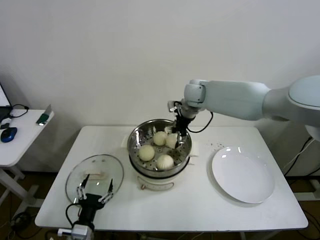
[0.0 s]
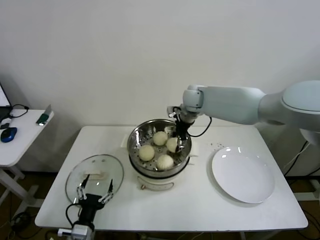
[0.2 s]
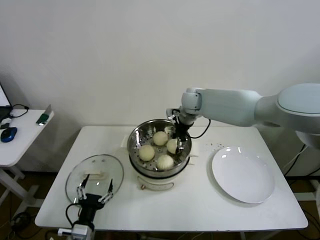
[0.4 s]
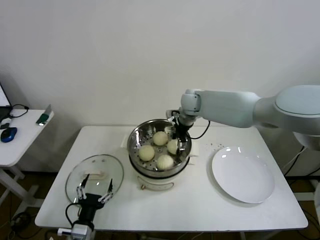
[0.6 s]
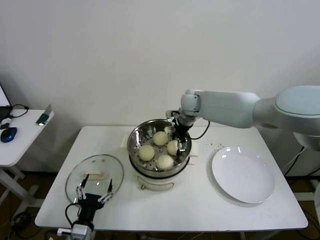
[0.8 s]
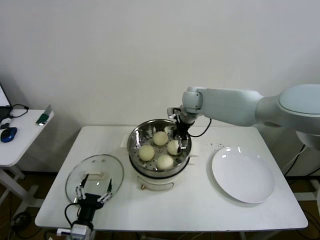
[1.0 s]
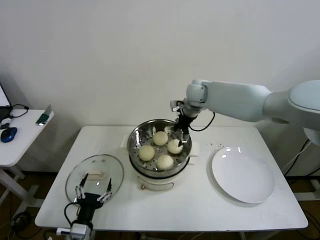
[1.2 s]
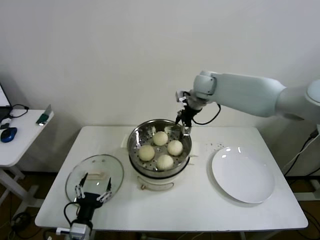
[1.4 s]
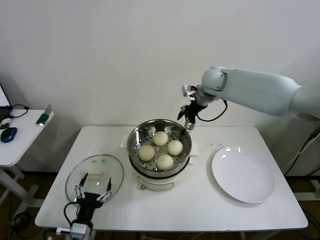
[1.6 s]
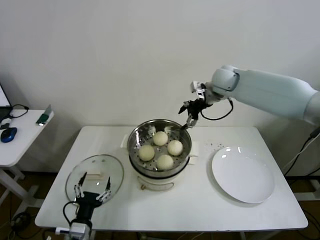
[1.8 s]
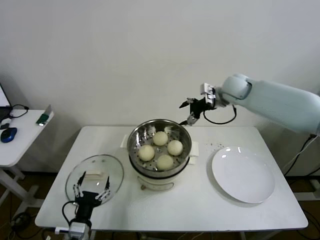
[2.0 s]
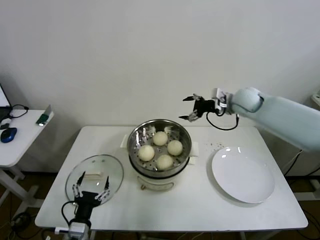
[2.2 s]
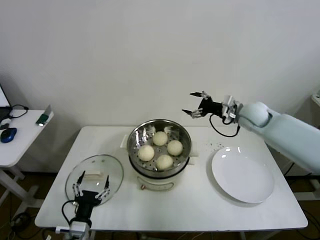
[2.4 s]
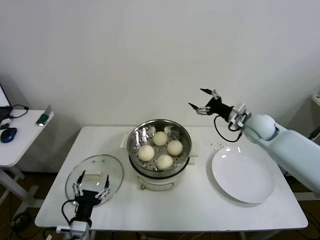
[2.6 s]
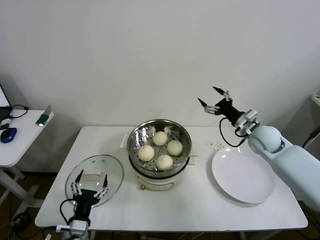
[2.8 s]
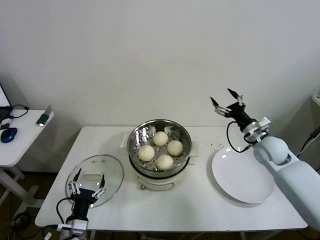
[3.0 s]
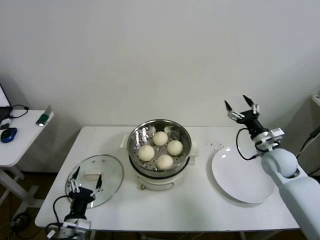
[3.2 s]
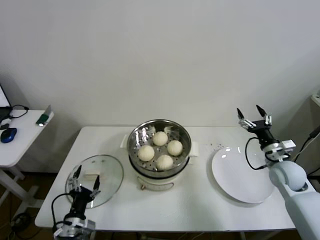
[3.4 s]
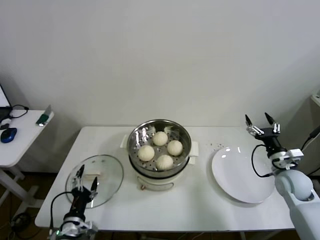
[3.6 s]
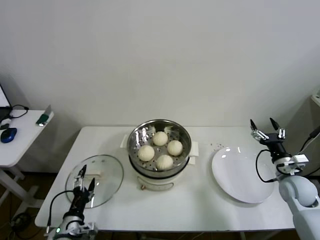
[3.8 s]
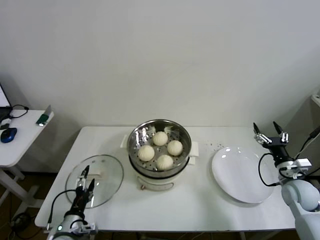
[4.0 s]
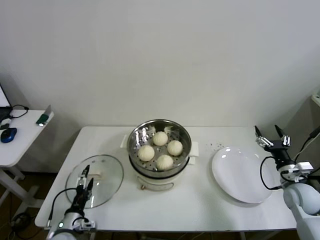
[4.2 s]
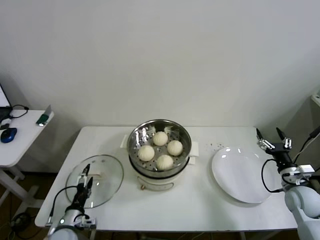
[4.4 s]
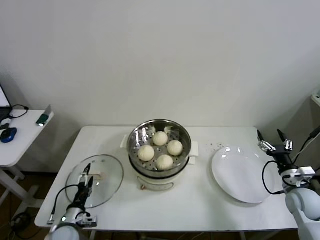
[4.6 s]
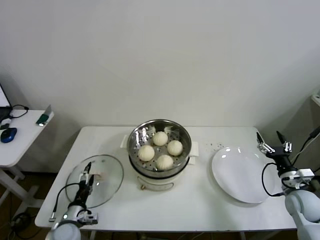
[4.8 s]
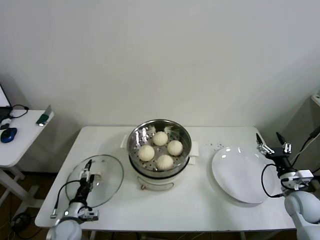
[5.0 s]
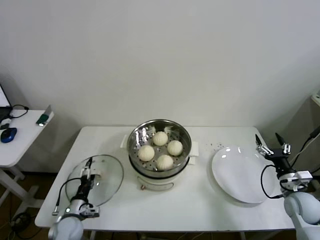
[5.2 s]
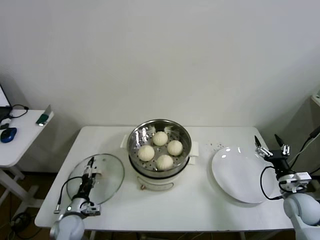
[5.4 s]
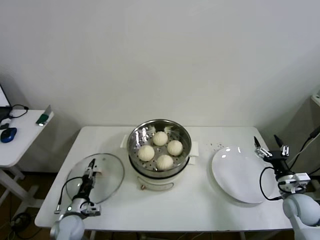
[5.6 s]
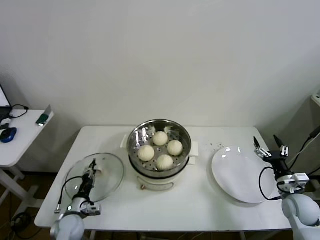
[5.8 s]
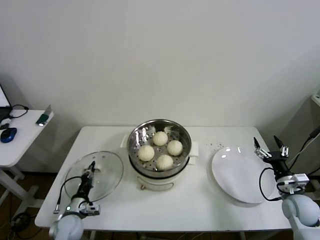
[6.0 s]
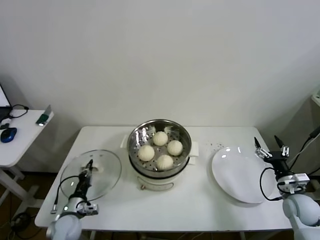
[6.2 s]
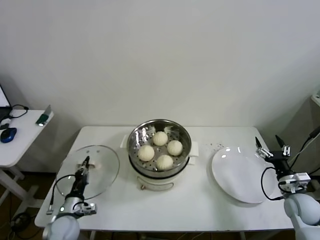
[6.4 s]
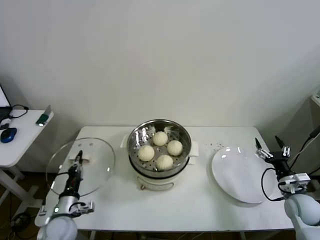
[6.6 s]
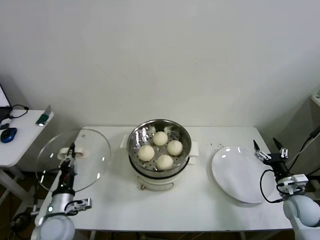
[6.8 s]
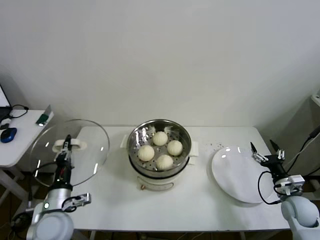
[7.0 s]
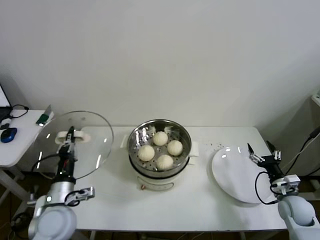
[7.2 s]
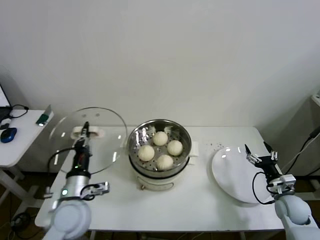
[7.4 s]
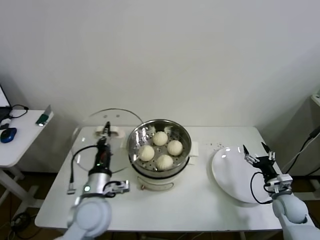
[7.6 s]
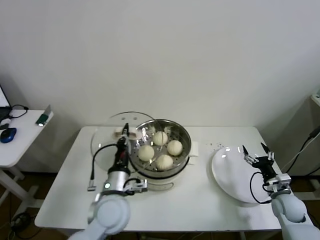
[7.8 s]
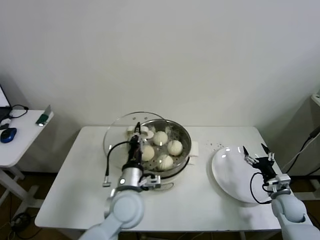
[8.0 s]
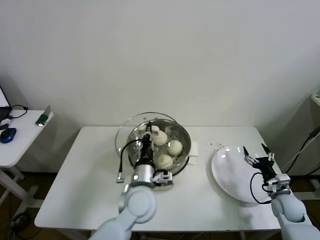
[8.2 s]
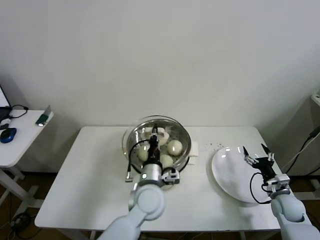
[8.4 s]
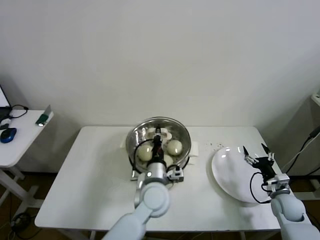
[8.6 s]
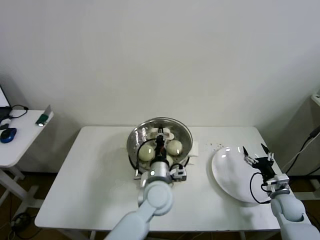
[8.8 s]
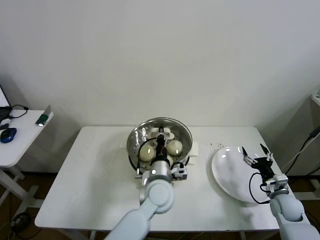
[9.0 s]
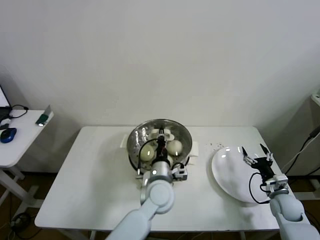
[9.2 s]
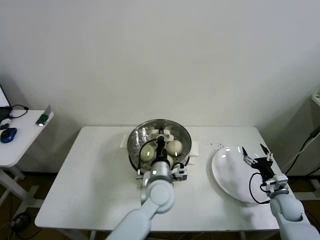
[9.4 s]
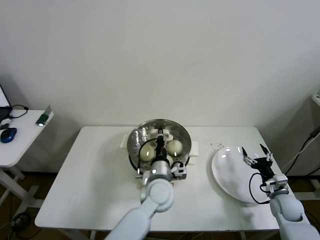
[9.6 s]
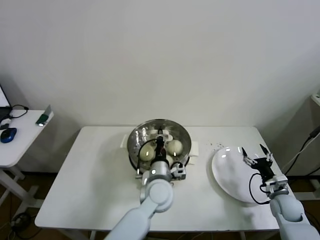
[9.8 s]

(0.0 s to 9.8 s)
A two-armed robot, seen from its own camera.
Step, 0.8 s - 6.0 s: Grasp the pot lid with left gripper.
0.0 s - 1.4 s: The right gripper opens its fingers.
1.4 s - 2.8 s: The right gripper shifts some 25 cm to the right, backward and downward.
2.8 s - 4.2 s: The left gripper travels to the left by some 5 cm; the right gripper shifts roughly 20 cm backward, downward and to the right.
4.2 s - 5.6 s: The left gripper travels forward by about 5 cm.
5.6 s - 7.0 s: The left gripper moves upward, approximately 15 cm, and closes up.
7.0 s - 8.4 s: The left gripper heads to the right, covering approximately 25 cm.
8.4 s - 9.8 s: The left gripper changes place by about 5 cm.

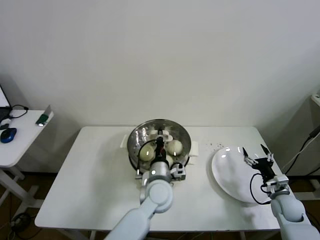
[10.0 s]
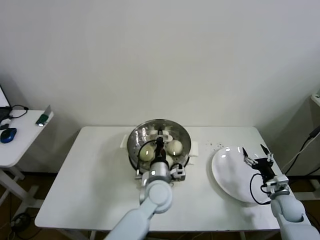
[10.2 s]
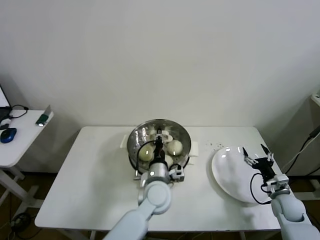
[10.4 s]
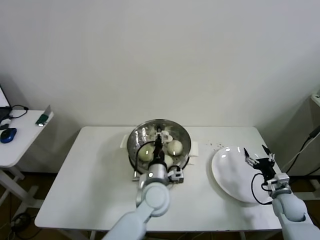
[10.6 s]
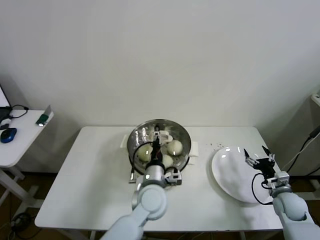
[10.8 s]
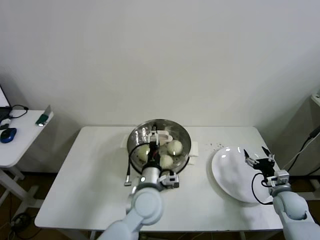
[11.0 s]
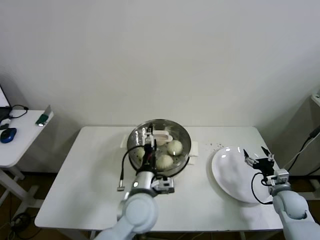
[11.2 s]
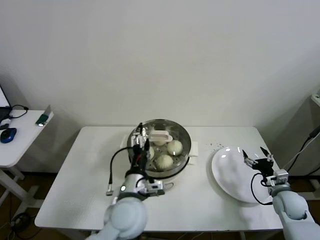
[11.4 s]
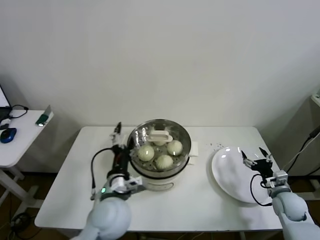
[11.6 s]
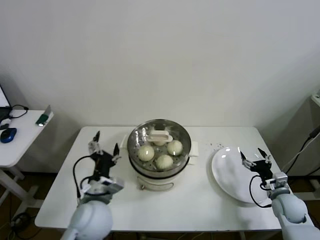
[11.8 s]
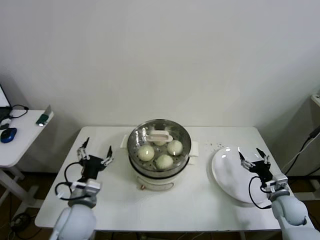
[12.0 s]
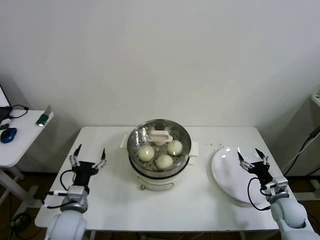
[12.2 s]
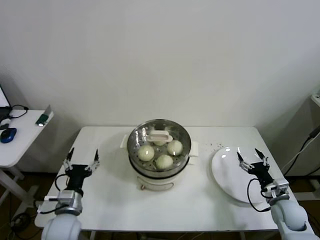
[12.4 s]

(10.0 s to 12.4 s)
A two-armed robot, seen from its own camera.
10.0 s - 11.2 s: The left gripper is displaced backward by some 5 cm, and opens.
11.2 s - 12.4 s: The left gripper moves to the left, about 25 cm.

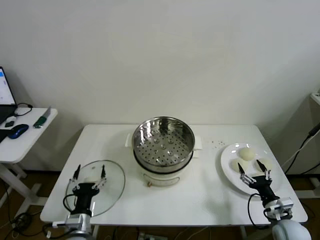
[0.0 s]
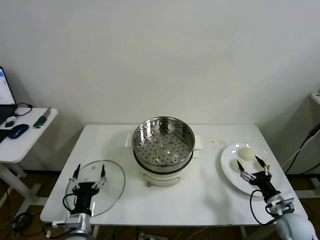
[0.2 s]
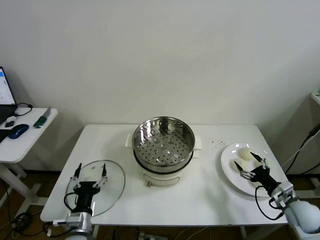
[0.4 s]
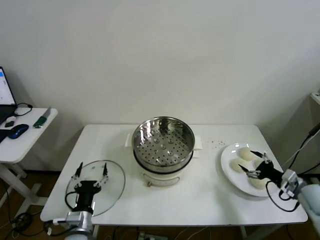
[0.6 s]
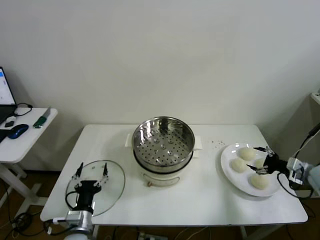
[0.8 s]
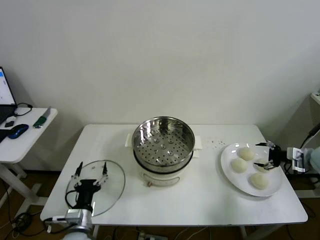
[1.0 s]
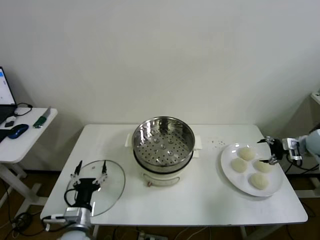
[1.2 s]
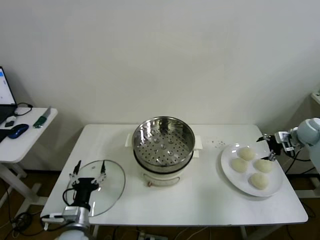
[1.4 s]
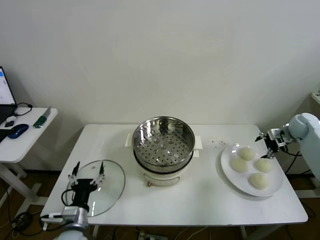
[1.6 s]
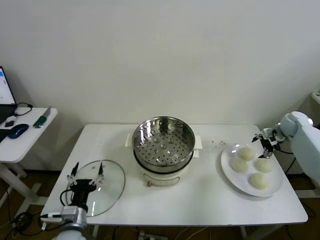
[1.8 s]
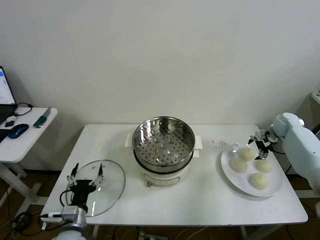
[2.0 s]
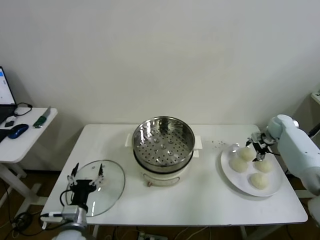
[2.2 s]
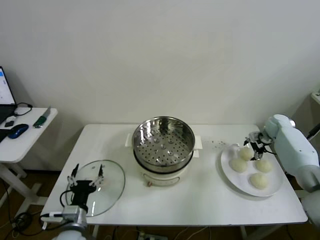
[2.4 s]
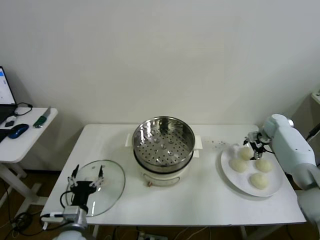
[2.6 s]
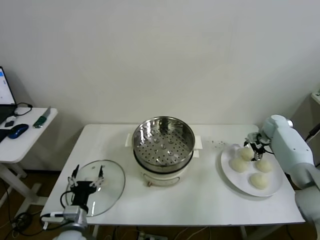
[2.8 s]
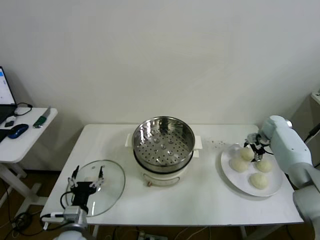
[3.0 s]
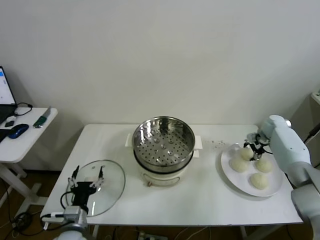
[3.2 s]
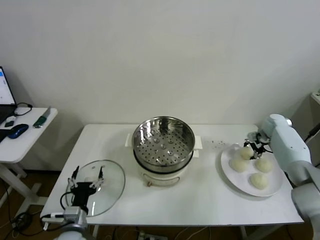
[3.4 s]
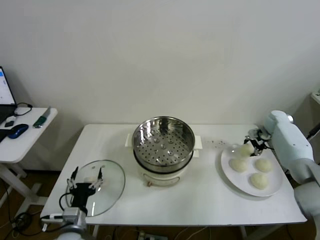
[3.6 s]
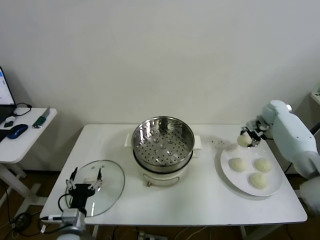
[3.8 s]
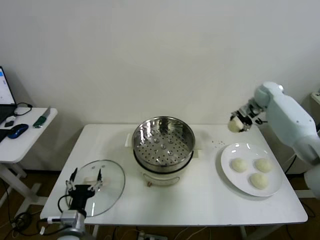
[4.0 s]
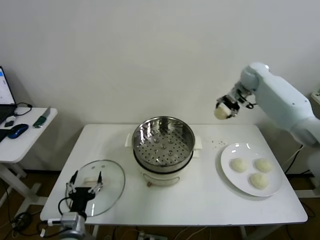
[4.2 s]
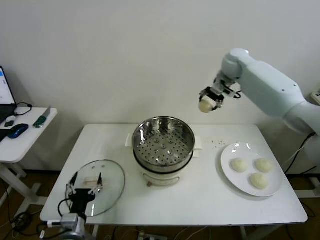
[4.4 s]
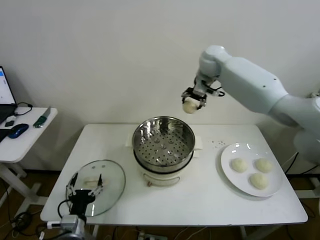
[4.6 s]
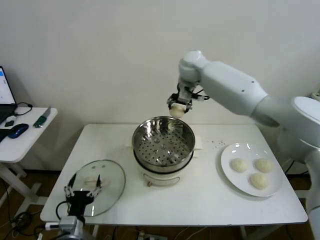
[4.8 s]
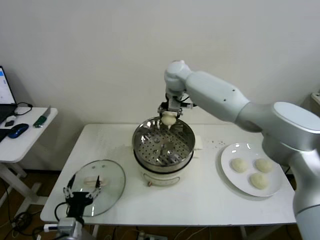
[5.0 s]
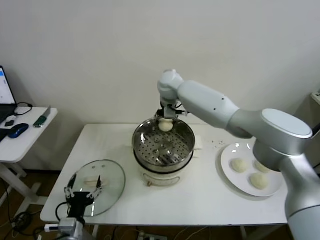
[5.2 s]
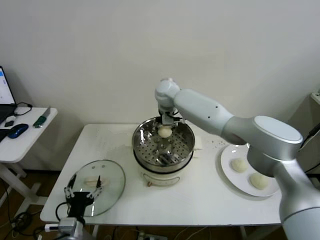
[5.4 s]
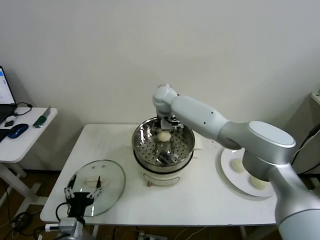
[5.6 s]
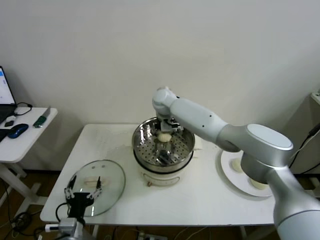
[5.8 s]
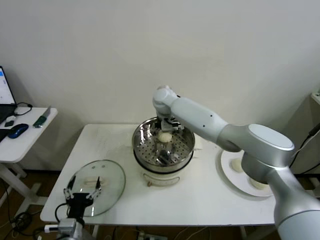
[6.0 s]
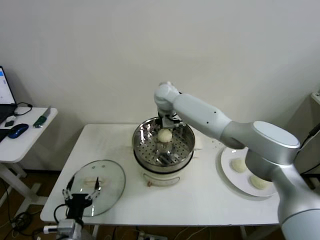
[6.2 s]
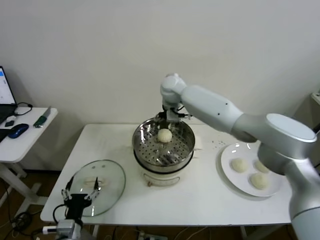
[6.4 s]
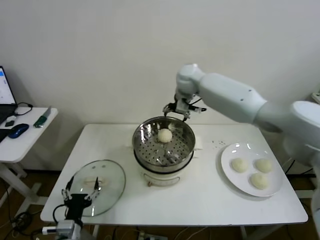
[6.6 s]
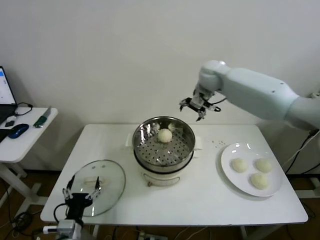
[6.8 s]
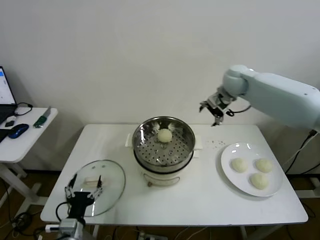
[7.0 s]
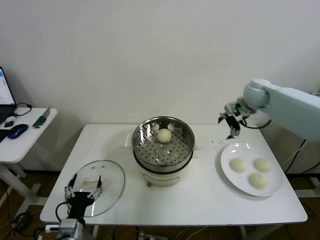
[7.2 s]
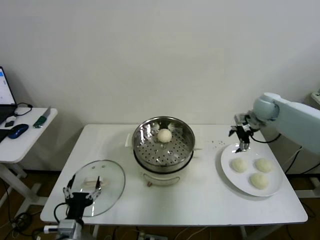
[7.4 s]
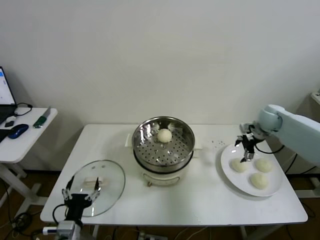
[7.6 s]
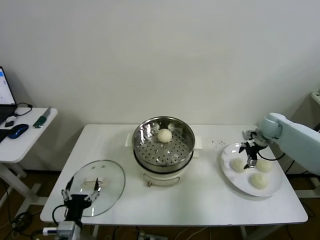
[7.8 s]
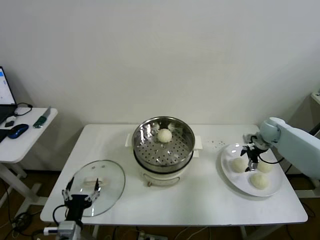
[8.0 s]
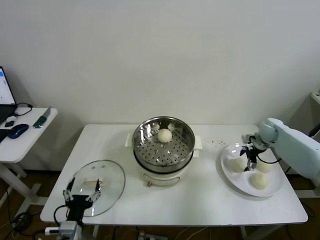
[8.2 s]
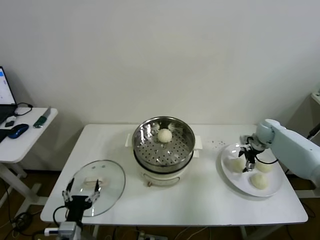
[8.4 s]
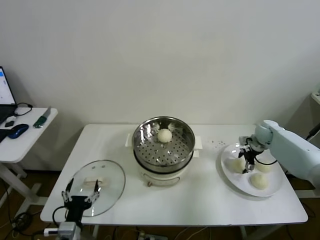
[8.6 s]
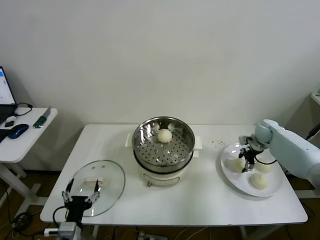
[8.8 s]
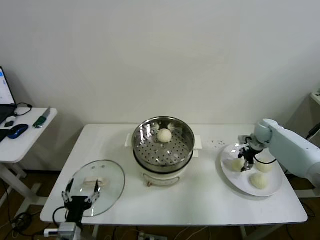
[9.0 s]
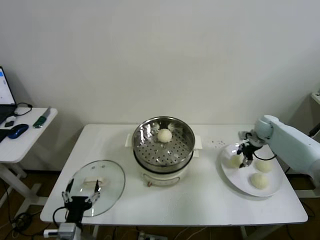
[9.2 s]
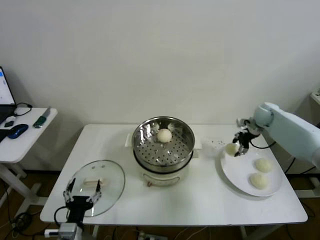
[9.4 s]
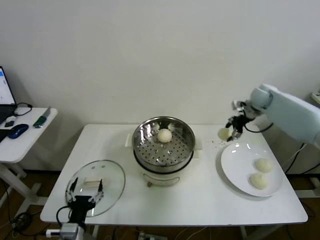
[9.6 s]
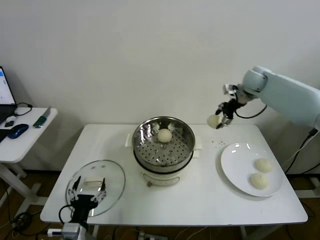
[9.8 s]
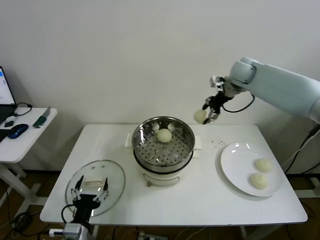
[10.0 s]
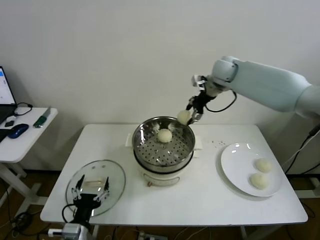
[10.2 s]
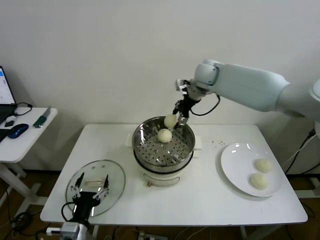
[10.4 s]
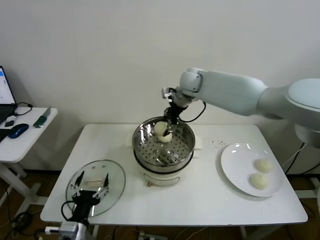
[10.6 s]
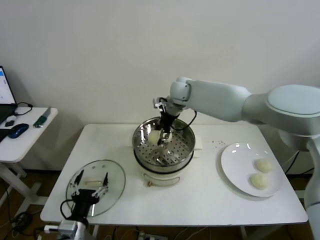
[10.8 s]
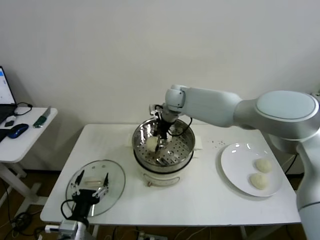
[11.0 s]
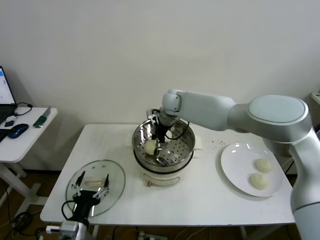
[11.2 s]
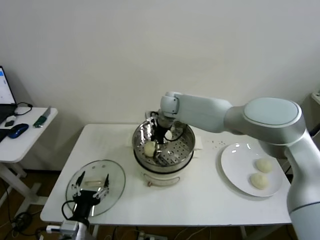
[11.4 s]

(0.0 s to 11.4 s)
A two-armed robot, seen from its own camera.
Step, 0.0 s - 3.0 s: Grasp the baozi in the plate with right gripper.
Step, 3.4 s - 5.8 s: Place the baozi on the steamer with right gripper.
Step, 6.0 s - 8.6 s: Grasp the baozi in the plate with right gripper.
Step, 9.0 s - 11.4 s: Place the baozi on the steamer with right gripper.
1.4 s - 2.8 s: The right gripper travels forward, to the left and downward by roughly 10 cm.
2.8 s - 4.2 s: The right gripper travels upward and to the left by about 25 cm, and closes its fingers.
4.2 s - 5.6 s: The right gripper is displaced to the left by some 30 cm.
5.6 s - 7.2 s: The right gripper goes some 30 cm to the right, and opens.
7.2 s - 8.6 s: The right gripper travels downward and to the right by some 20 cm.
8.6 s - 10.0 s: The right gripper moves upward and to the left, approximately 30 cm, and closes.
10.0 s - 11.4 s: The right gripper travels to the left and downward by approximately 25 cm.
